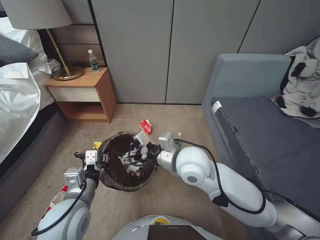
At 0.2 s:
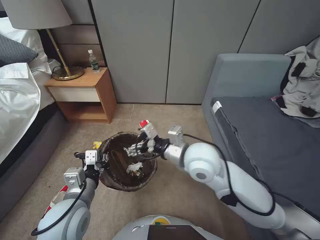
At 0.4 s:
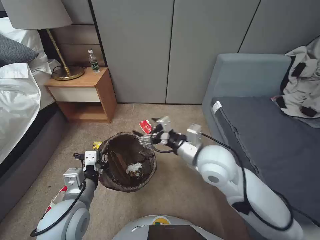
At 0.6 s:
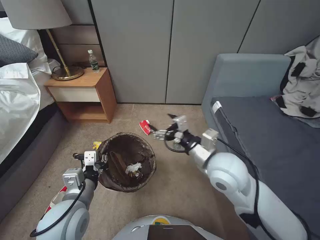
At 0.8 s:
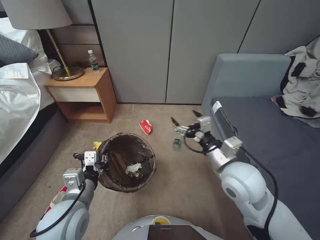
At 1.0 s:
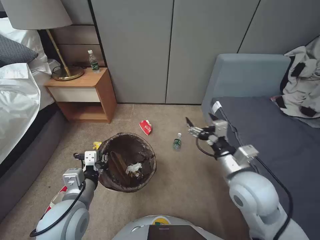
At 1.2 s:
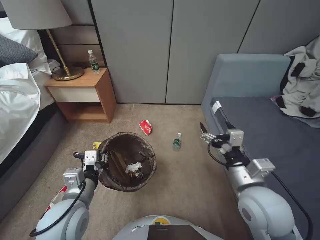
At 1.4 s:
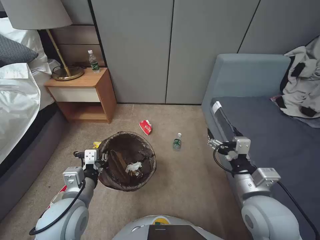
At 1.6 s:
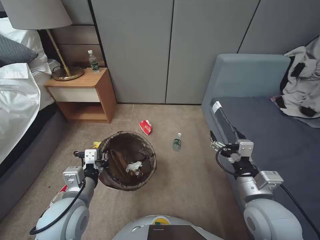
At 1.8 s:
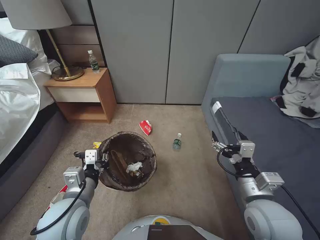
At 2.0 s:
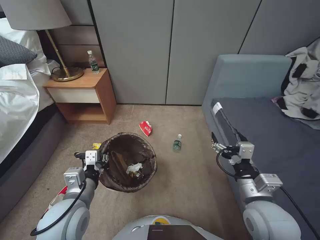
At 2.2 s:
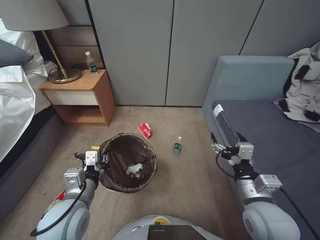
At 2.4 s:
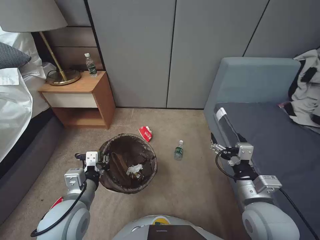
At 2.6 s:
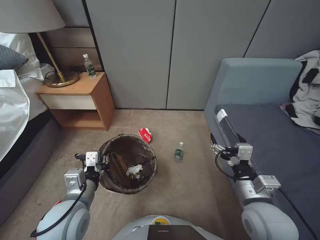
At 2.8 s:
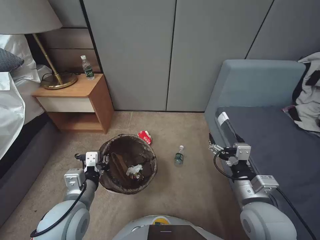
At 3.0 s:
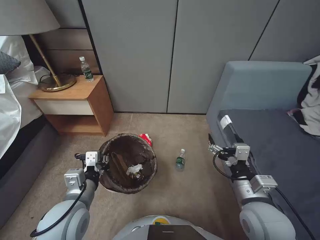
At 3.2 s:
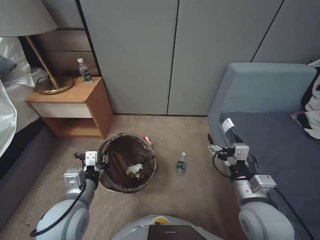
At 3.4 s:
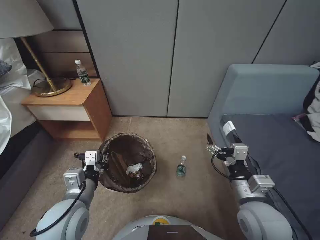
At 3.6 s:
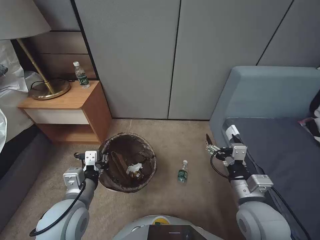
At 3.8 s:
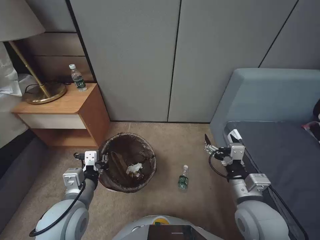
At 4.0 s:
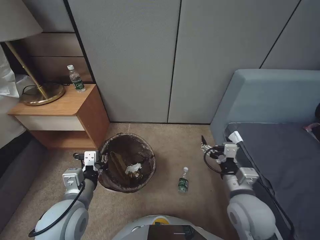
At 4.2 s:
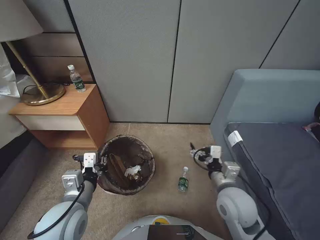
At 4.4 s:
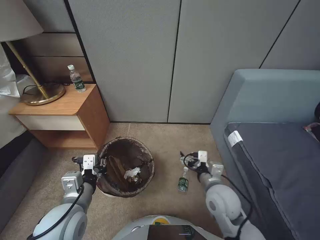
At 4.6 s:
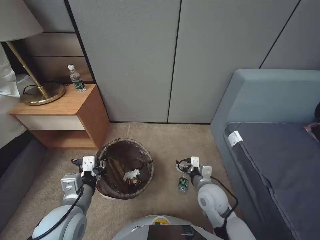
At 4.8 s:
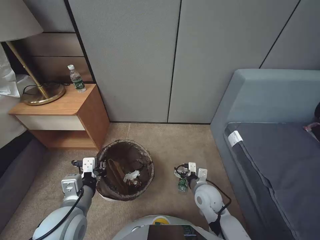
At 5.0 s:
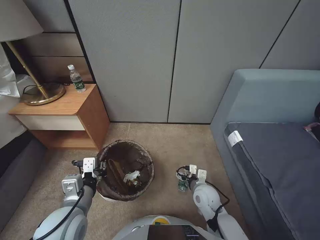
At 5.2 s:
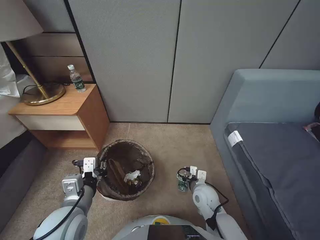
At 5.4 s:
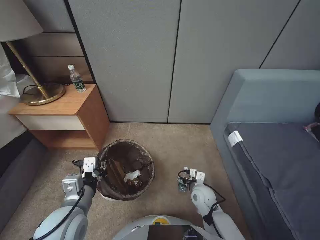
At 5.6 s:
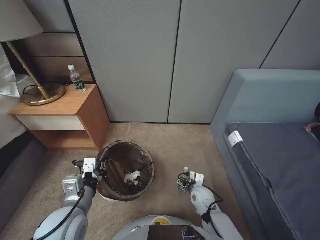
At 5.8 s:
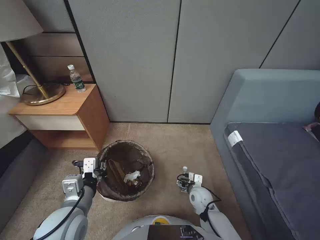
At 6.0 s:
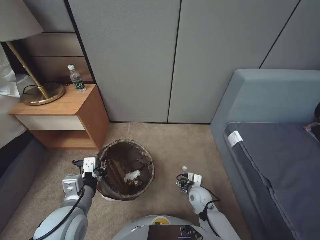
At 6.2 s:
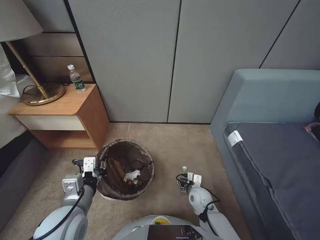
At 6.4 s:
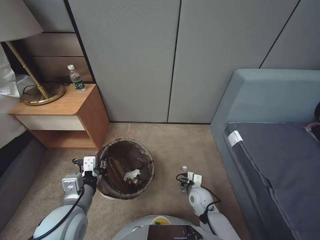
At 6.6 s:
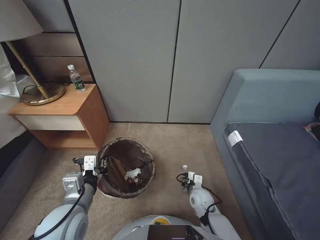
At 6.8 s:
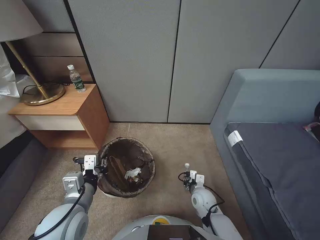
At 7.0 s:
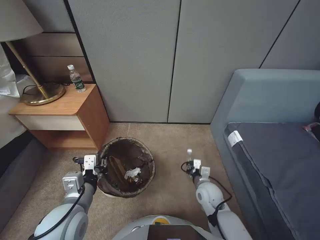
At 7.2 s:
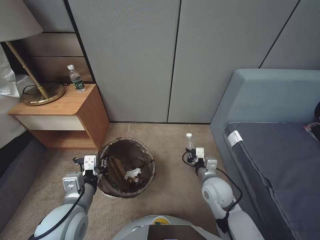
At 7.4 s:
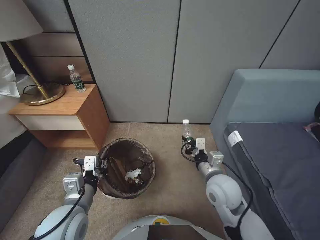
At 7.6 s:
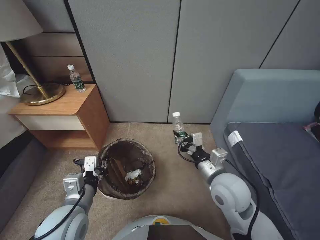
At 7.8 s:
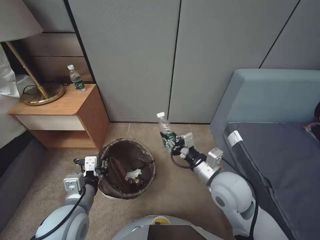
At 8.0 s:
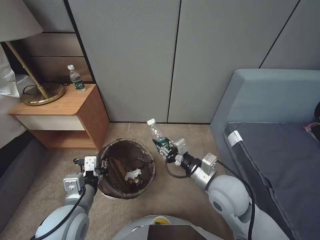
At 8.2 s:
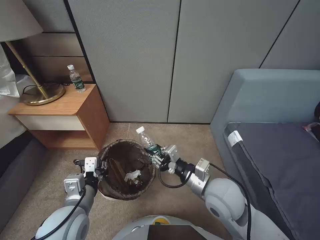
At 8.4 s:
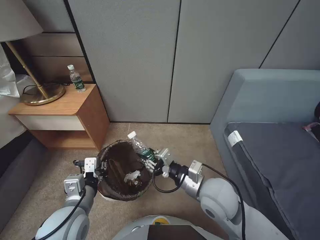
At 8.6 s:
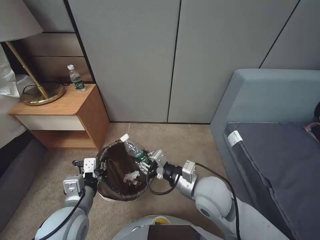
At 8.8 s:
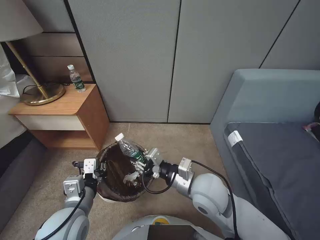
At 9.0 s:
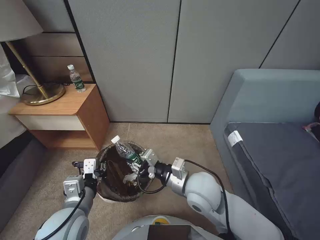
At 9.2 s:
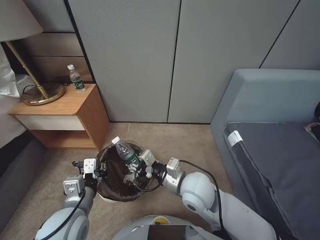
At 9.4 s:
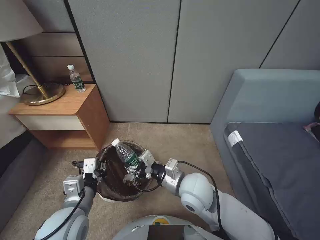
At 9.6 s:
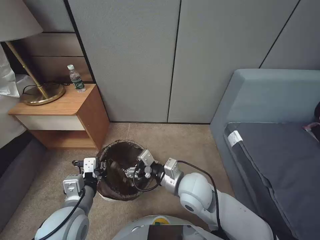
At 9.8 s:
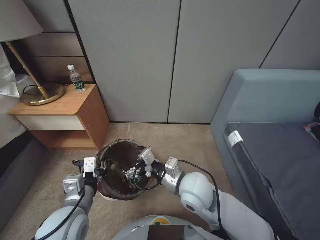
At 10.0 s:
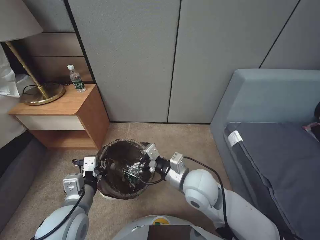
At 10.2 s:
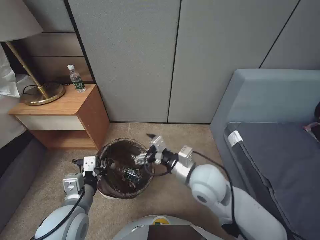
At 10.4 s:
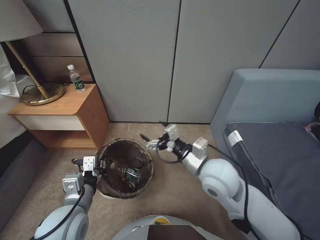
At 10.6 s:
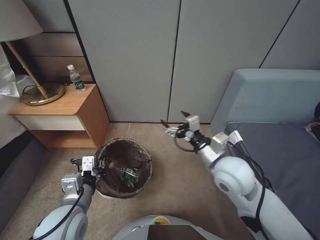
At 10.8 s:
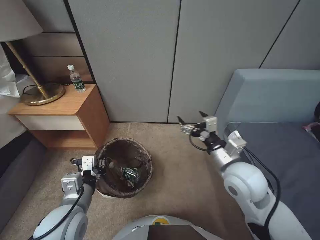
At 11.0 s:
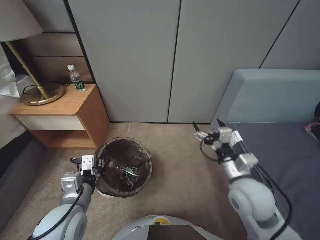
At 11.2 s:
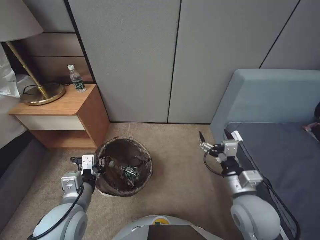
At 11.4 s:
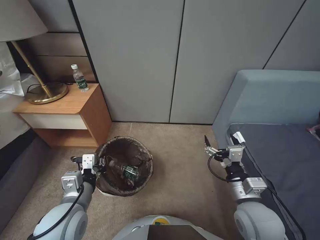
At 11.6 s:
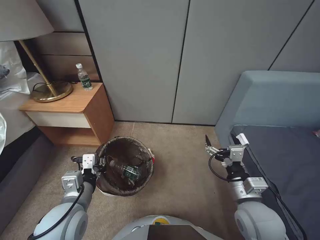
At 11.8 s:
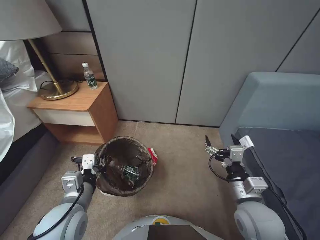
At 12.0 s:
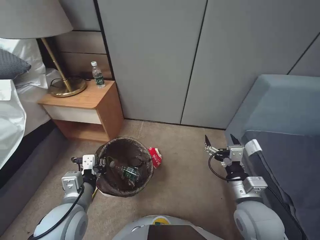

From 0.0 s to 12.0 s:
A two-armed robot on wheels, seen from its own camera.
Task of the whole recording: Pick up the trash bin, then pick up the garbage from the floor and place it into the trash bin.
From 0.0 s to 1.6 s: The right gripper moves to the right and backward, approximately 20 cm.
From 3.0 s to 4.4 s: The right gripper travels forward by some 5 cm.
From 4.4 s to 6.0 s: The right gripper shifts some 20 cm downward.
From 6.0 s to 7.6 s: The right gripper goes approximately 25 cm upward, and closes up.
From 7.6 s to 9.0 s: The right gripper is displaced to the left by roughly 5 cm.
From 9.0 s to 10.4 s: The right gripper opens up.
From 10.4 s to 12.0 s: The right gripper goes some 15 cm to the right, backward and downward.

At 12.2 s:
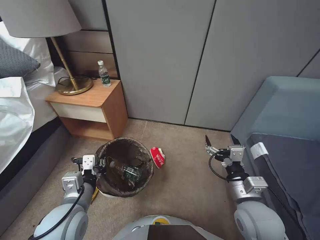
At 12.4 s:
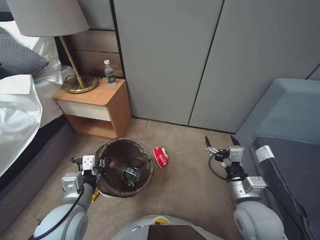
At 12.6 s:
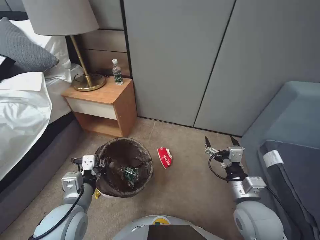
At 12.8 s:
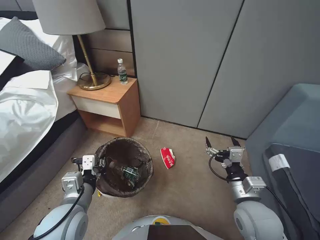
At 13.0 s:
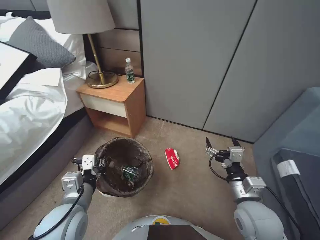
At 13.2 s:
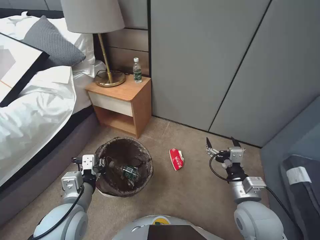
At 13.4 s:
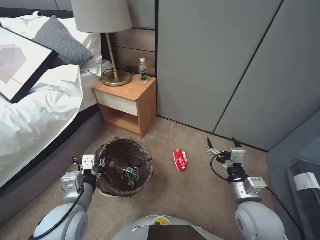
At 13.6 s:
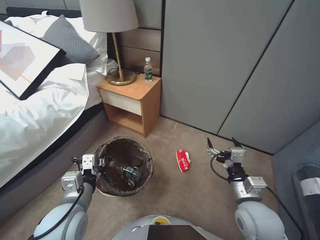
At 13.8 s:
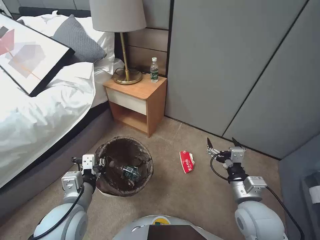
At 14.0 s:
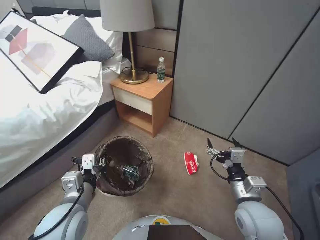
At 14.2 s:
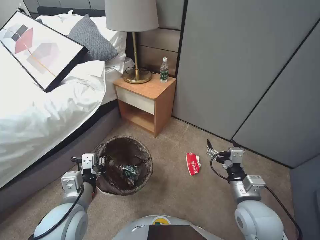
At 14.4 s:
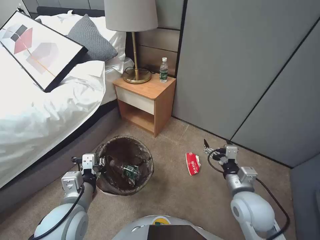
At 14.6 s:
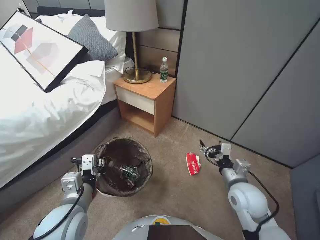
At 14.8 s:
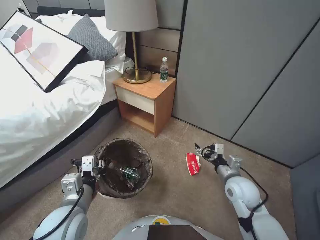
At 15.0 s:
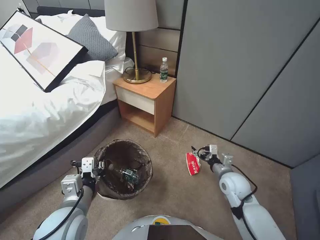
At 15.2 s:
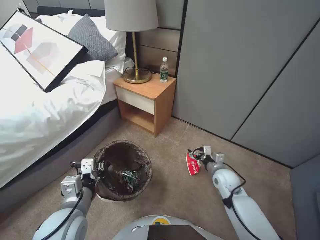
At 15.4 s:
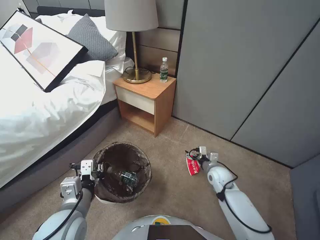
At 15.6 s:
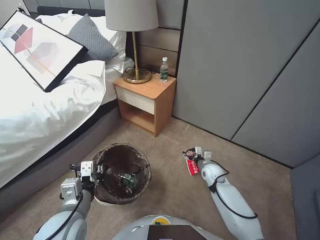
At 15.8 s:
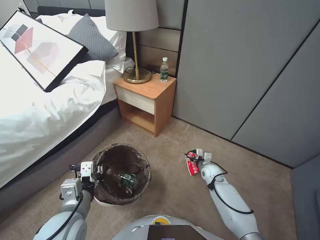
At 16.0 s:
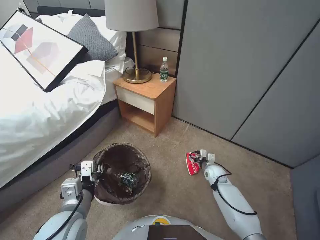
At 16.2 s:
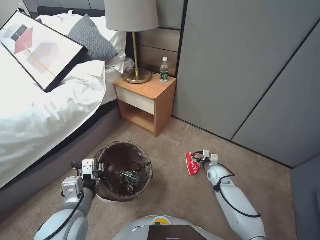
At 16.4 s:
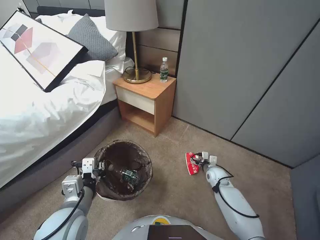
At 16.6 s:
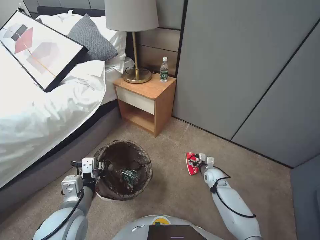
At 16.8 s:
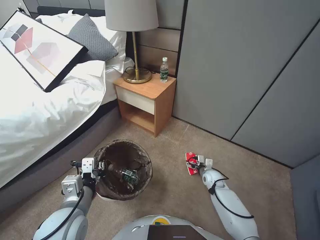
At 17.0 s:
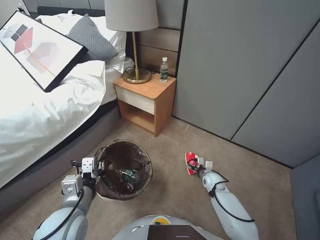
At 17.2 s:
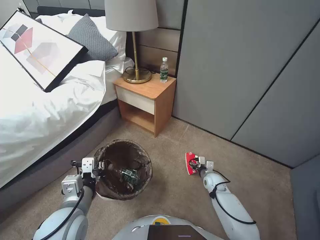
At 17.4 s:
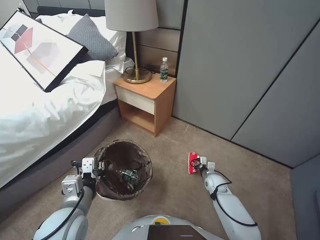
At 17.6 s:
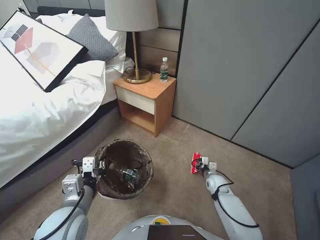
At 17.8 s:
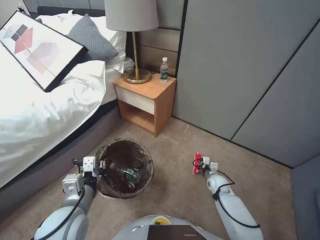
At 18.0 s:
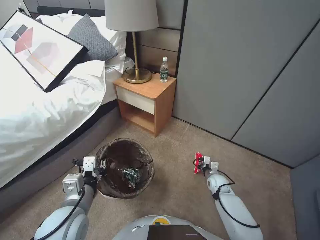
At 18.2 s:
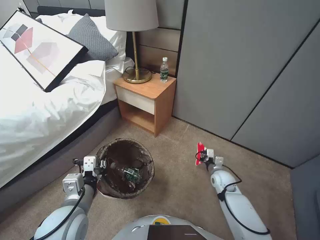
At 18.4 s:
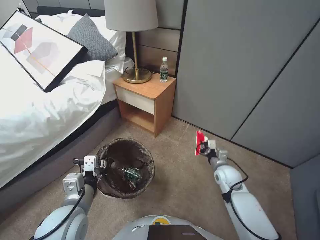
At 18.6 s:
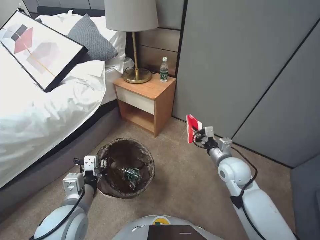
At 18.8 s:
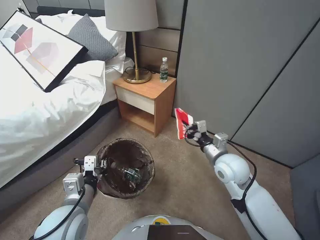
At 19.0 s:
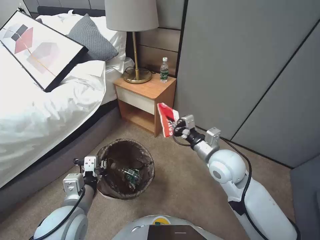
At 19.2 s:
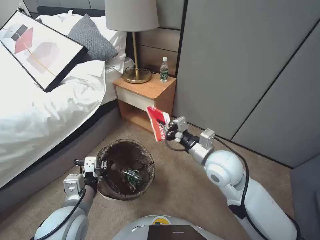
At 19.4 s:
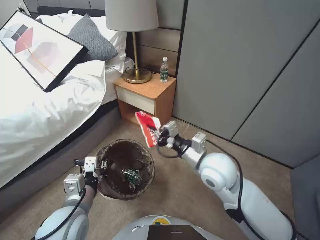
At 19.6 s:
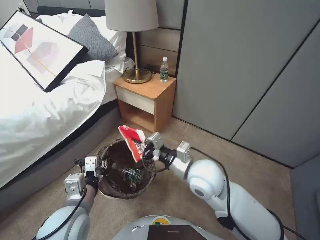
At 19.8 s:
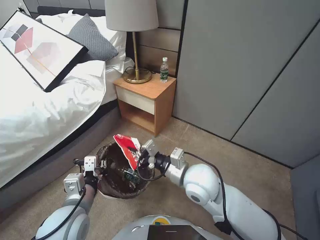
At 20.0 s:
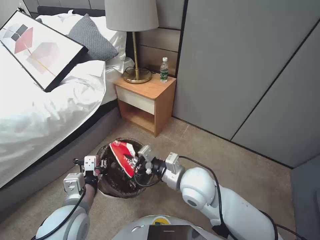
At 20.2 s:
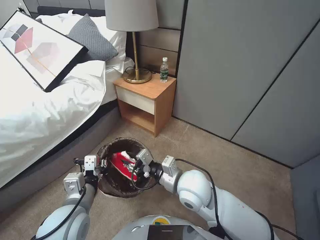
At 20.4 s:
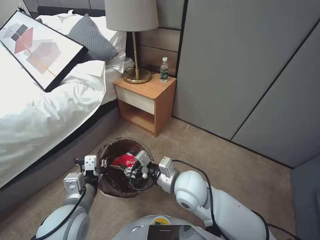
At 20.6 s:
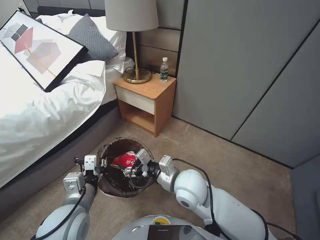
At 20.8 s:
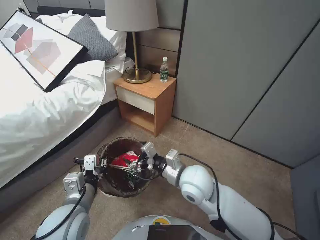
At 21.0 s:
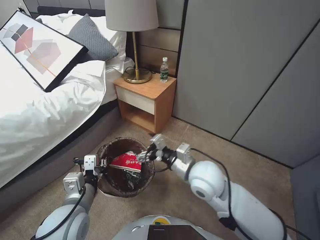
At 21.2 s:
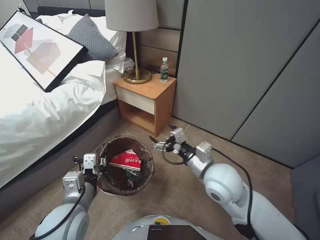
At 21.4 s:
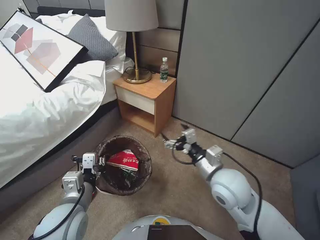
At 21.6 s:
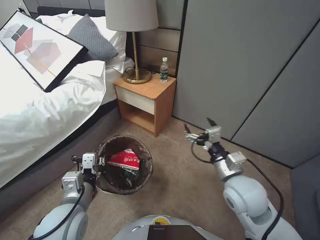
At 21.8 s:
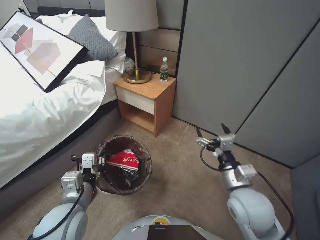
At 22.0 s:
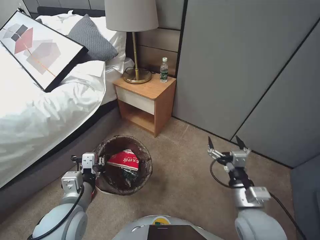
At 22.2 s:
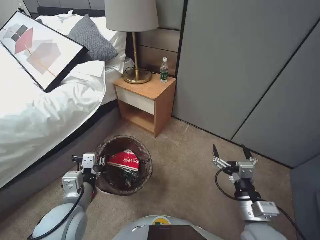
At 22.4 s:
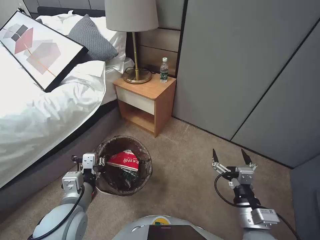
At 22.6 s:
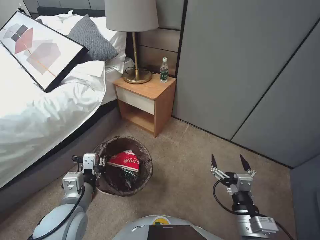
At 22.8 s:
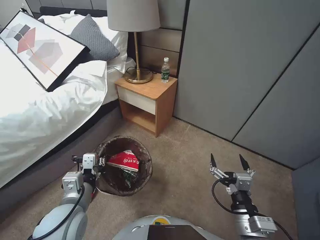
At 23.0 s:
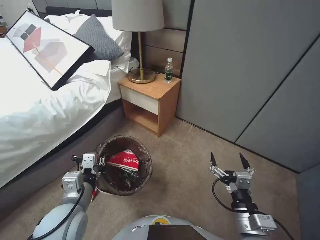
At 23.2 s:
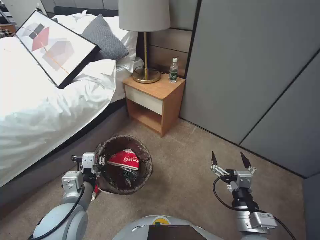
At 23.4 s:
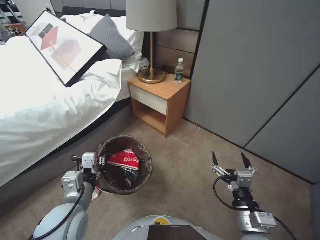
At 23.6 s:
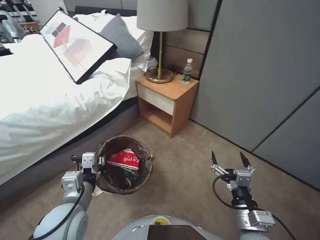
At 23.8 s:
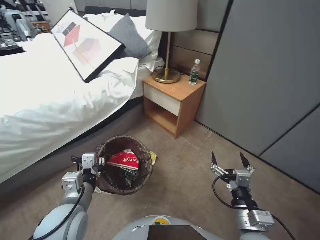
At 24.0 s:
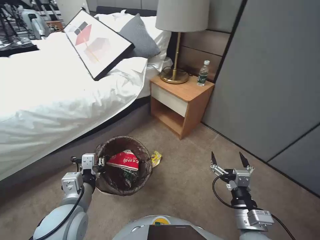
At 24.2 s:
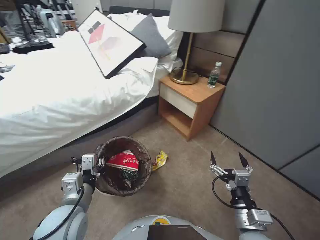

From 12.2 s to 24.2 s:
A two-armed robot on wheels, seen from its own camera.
Task of the whole recording: Pick up the trash bin, then pick up the garbage from the floor and place it into the trash bin.
From 13.8 s to 15.2 s: The right gripper is displaced forward and downward by approximately 15 cm.
From 15.2 s to 16.6 s: The right gripper travels downward and forward by about 15 cm.
From 16.6 s to 18.2 s: The right gripper closes up.
From 18.2 s to 19.8 s: The right gripper goes roughly 35 cm upward and to the left.
From 19.8 s to 21.2 s: The right gripper opens up.
From 21.2 s to 22.6 s: The right gripper goes approximately 20 cm backward, to the right and downward.
